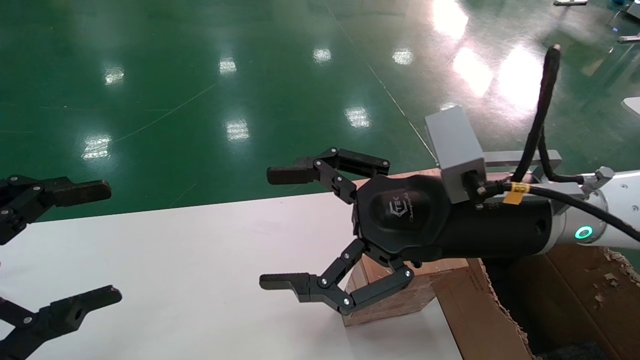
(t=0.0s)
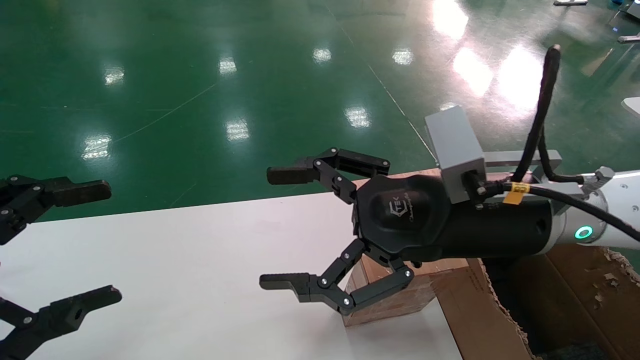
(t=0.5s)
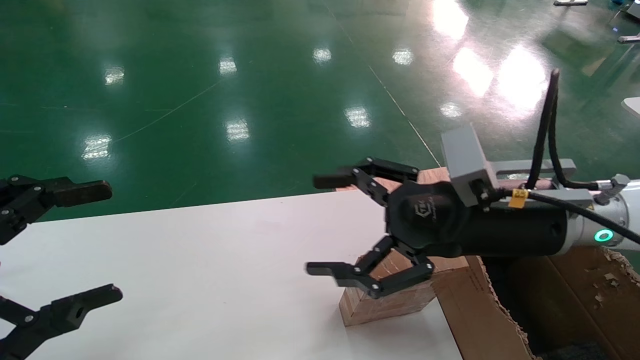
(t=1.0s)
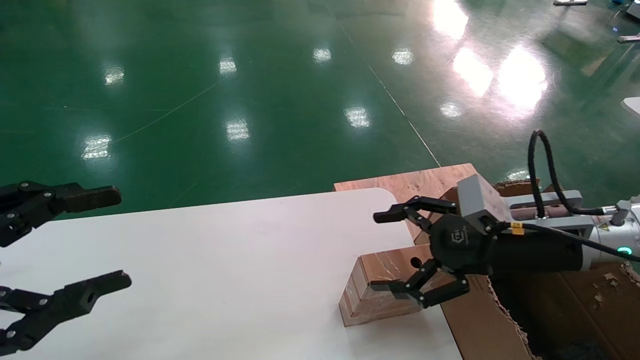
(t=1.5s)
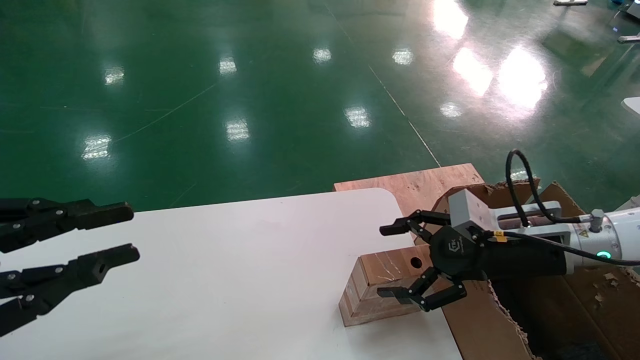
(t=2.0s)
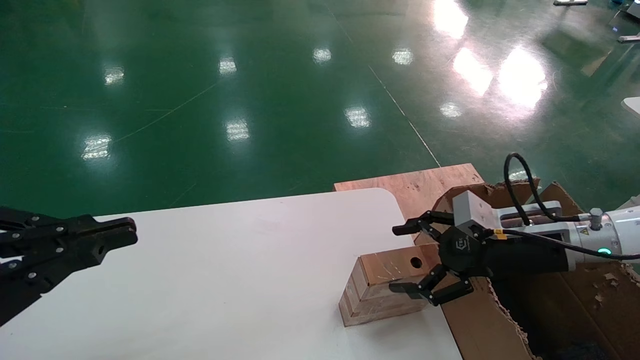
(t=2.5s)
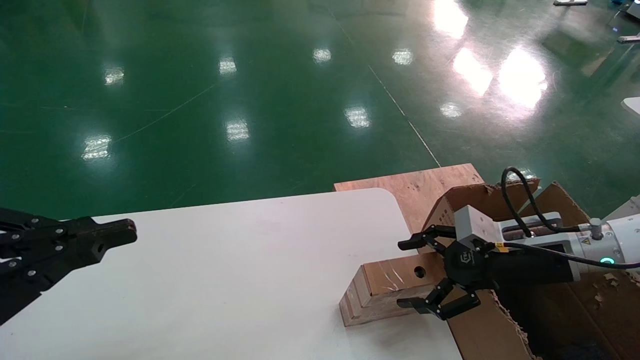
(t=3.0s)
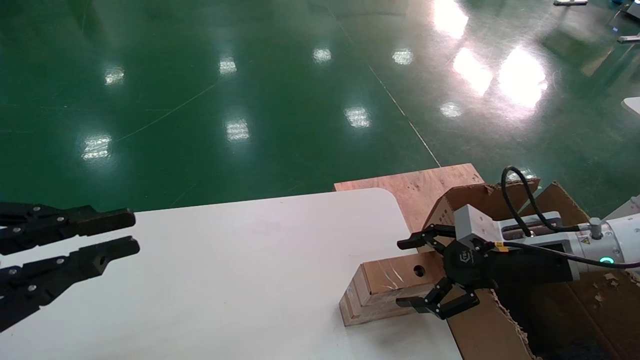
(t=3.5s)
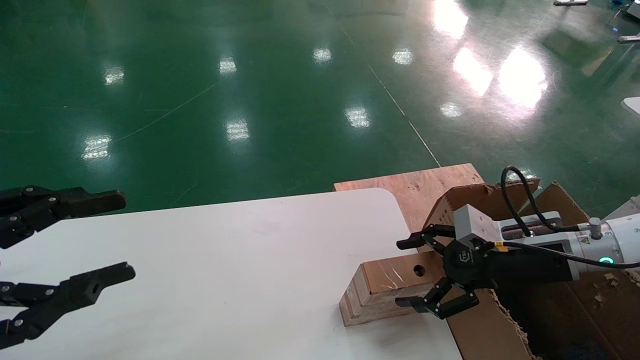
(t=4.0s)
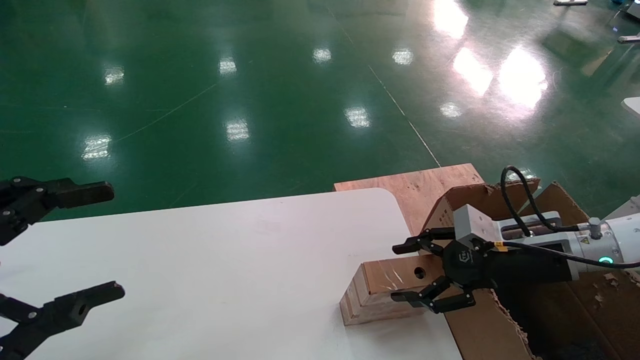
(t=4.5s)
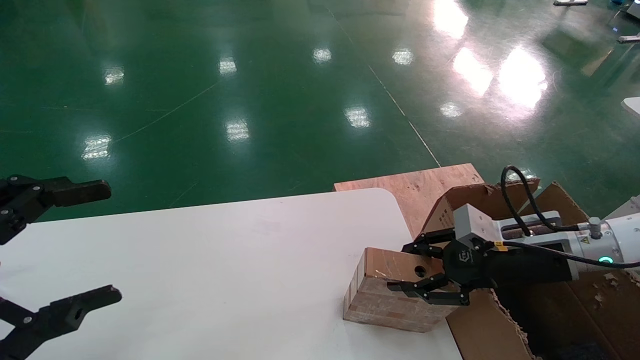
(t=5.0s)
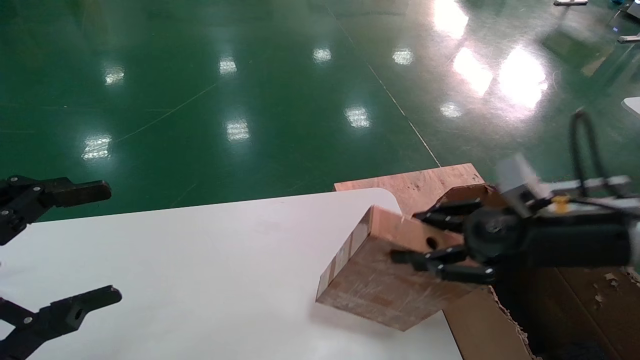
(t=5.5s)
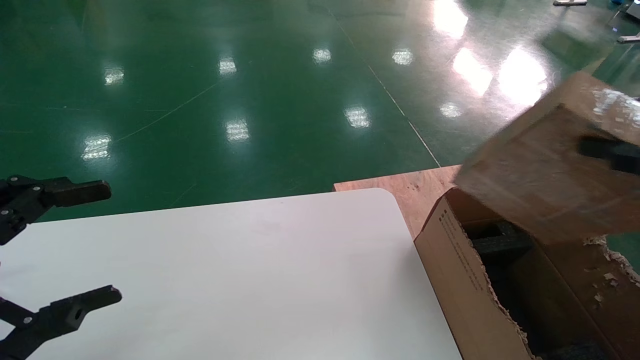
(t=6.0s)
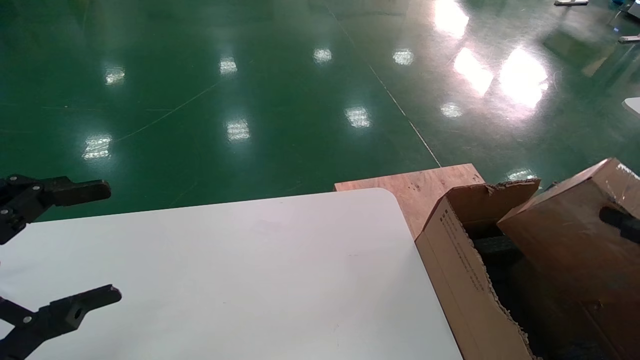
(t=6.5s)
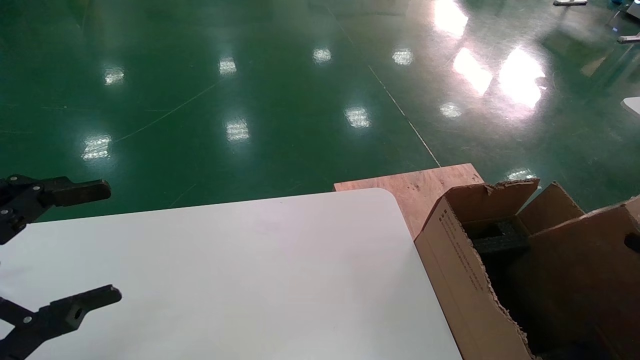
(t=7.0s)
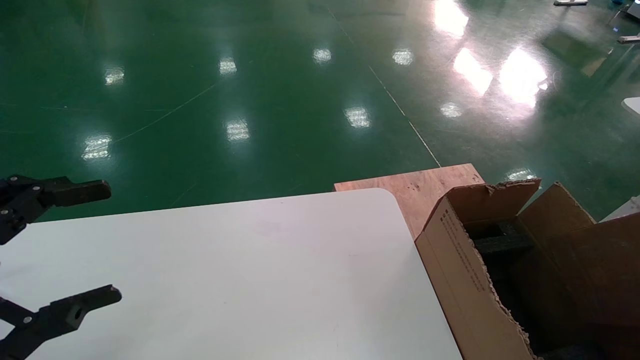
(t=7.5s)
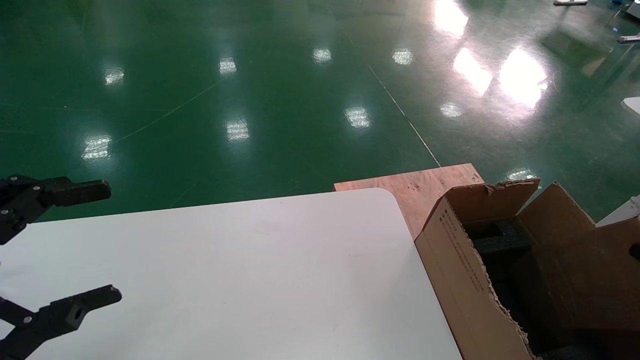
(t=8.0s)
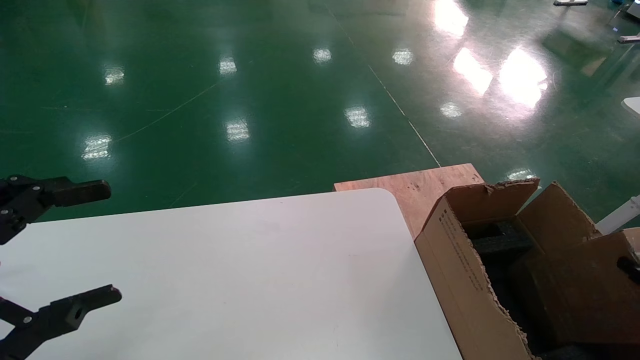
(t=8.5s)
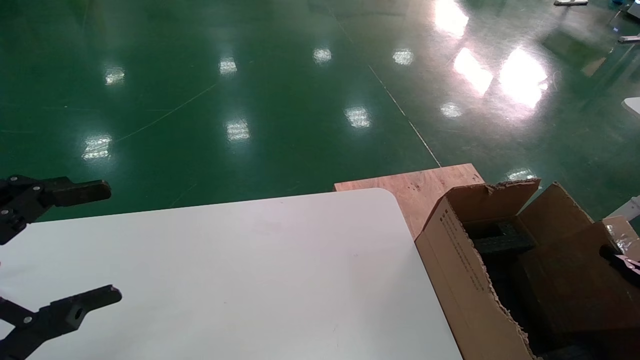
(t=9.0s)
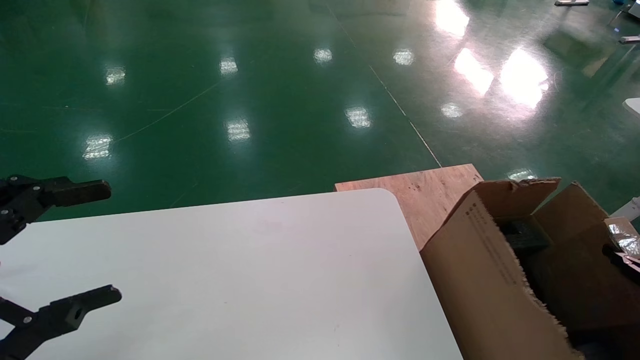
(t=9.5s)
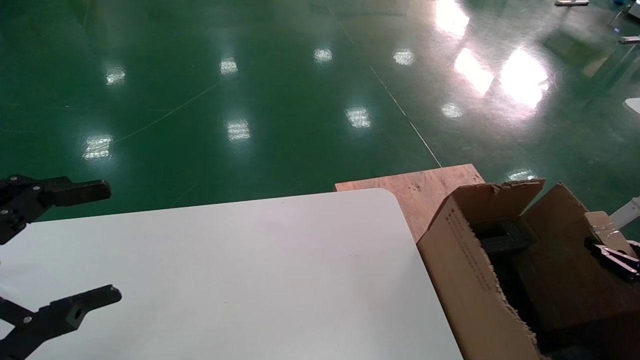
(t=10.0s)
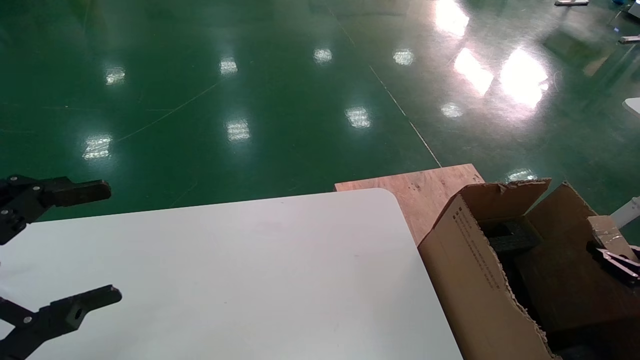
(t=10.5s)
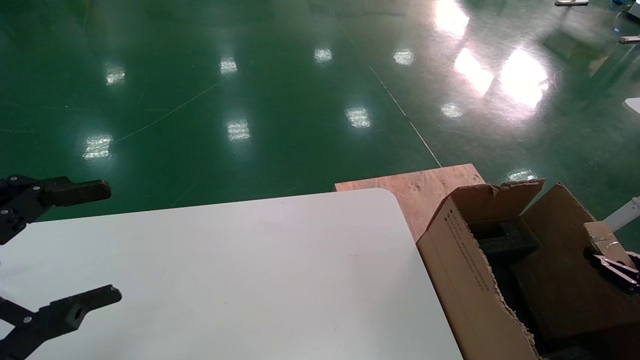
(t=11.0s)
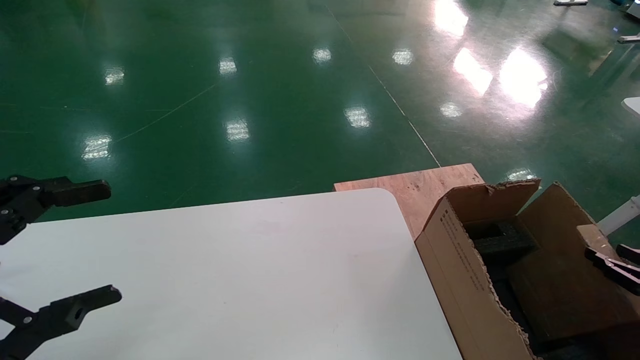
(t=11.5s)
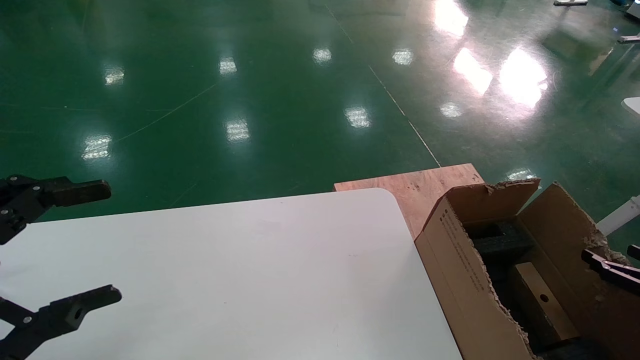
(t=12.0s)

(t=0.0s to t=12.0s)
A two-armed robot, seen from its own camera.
Task of the whole recording: put the box on the table into the big box.
Step, t=1.5s - t=5.0s: Pick up the mouse and the power cord paper box.
Step, t=5.5s - t=11.5s: Place the mouse and the power cord paper box into the container.
t=0.0s - t=2.0s: The right gripper moves to the right and downward, roughly 15 cm. The left gripper closes its fingers.
t=2.0s - t=4.0s: The left gripper closes, then reopens.
t=4.0s - t=6.0s: The left gripper opens its fingers; the right gripper is displaced backward and upward by roughly 25 cm, and closes up.
t=6.0s - t=8.0s: The right gripper goes about 30 cm downward and to the right.
t=8.0s - t=10.0s: The right gripper goes about 10 cm forward.
t=10.0s - t=12.0s: The right gripper opens up.

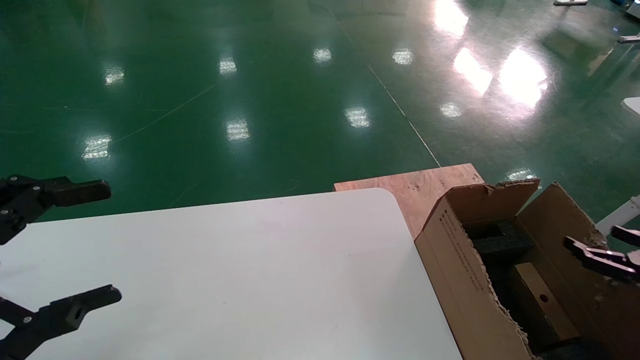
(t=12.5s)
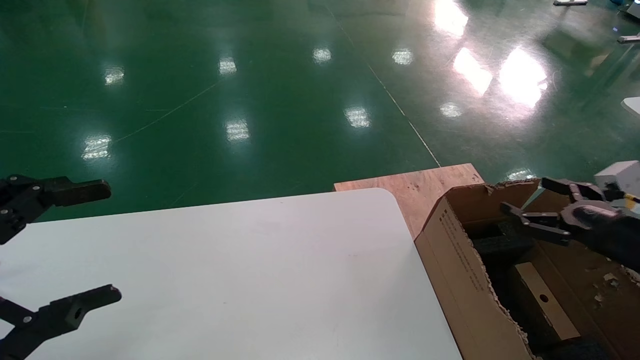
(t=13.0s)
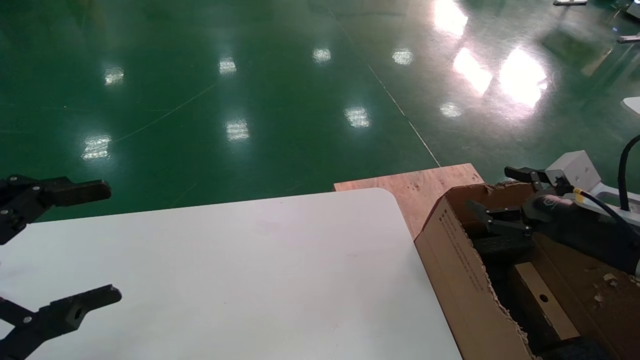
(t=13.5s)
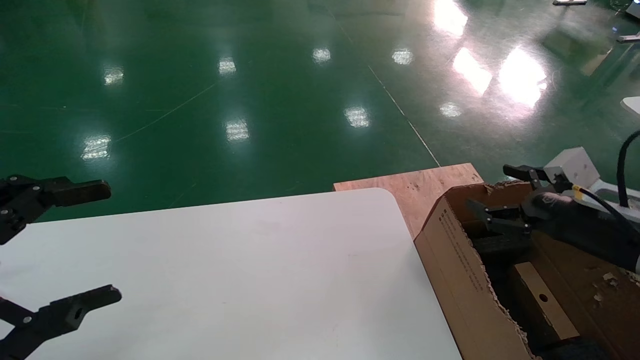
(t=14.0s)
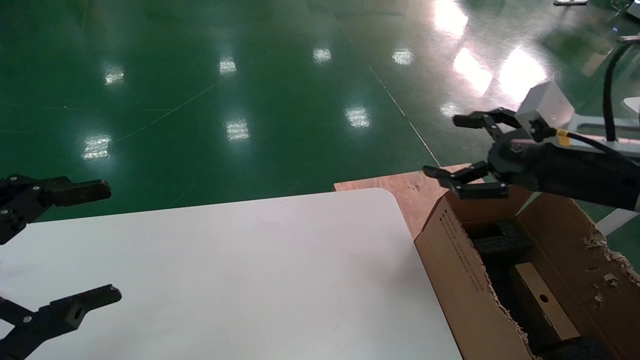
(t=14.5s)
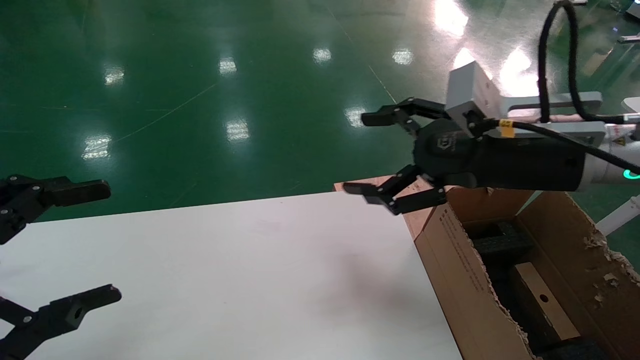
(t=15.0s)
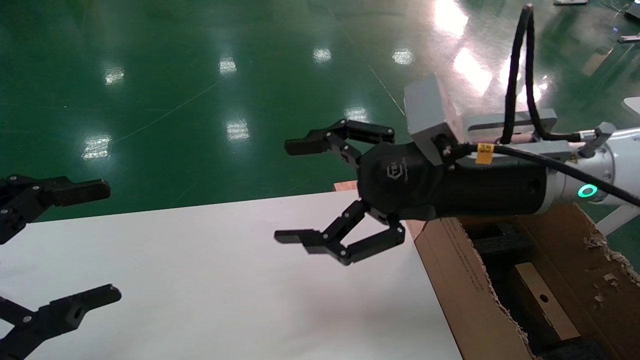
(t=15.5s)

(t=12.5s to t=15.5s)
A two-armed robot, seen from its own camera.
Task of the whole recording: put the box on the table into the big box.
t=12.5s - t=14.0s: The right gripper goes about 20 cm to the left, upward and forward.
t=14.0s - t=15.5s: The right gripper travels to the left and upward by roughly 25 cm.
